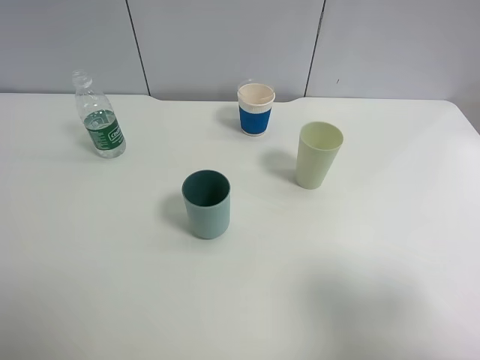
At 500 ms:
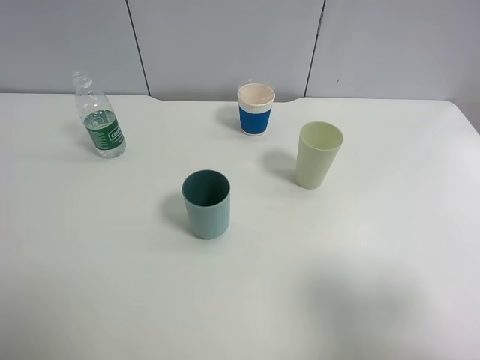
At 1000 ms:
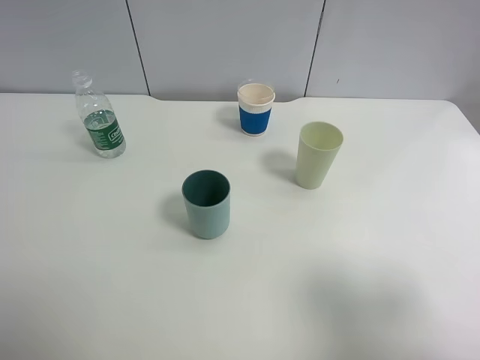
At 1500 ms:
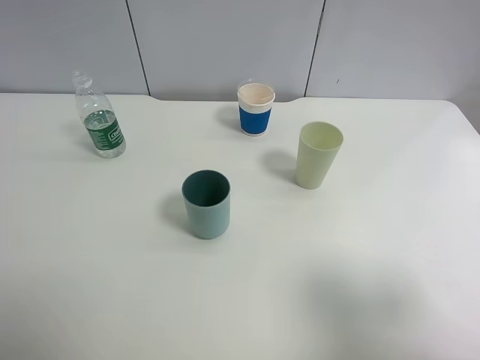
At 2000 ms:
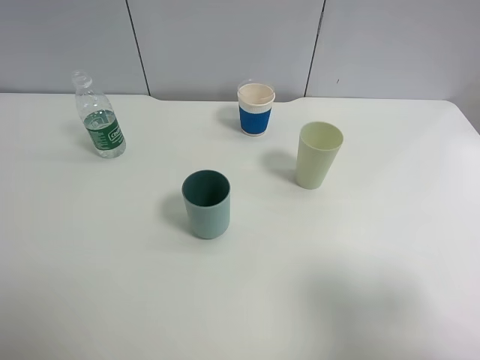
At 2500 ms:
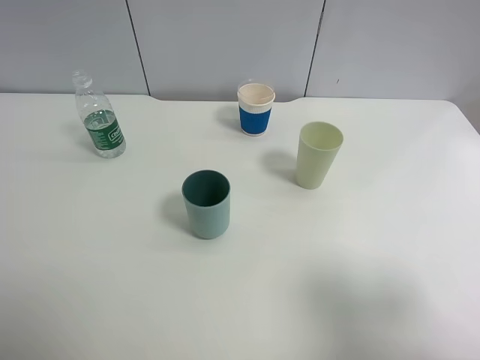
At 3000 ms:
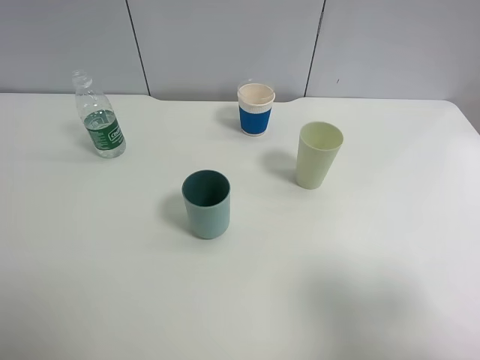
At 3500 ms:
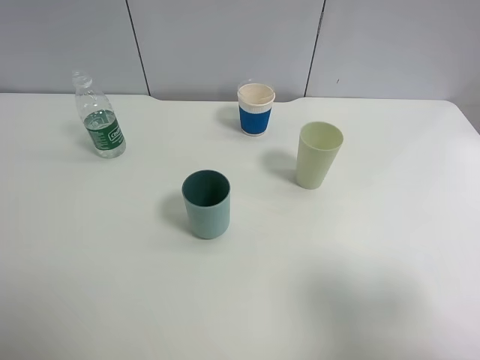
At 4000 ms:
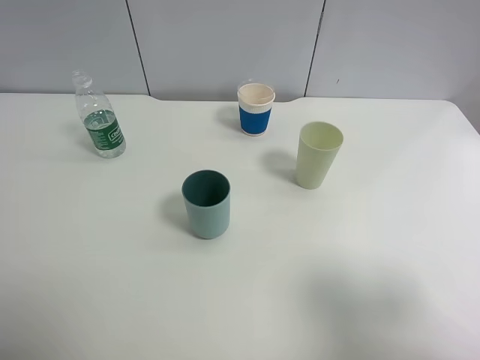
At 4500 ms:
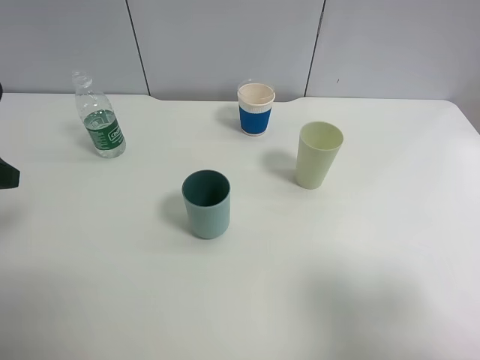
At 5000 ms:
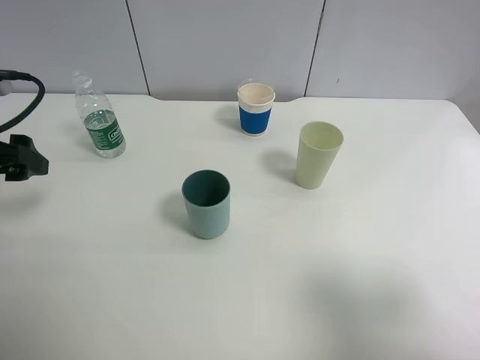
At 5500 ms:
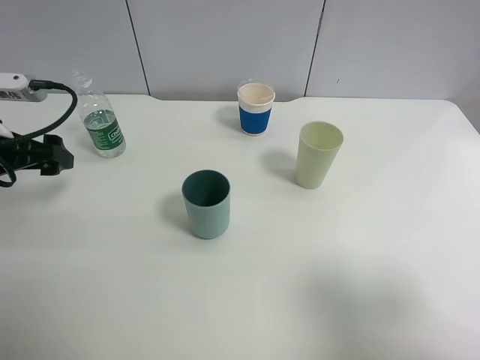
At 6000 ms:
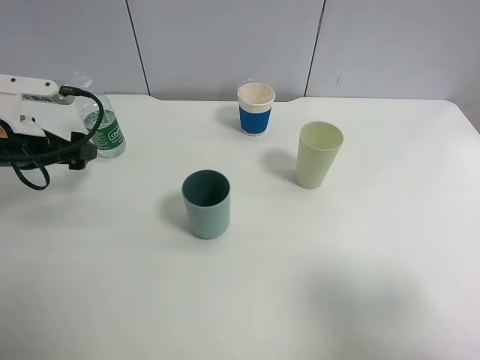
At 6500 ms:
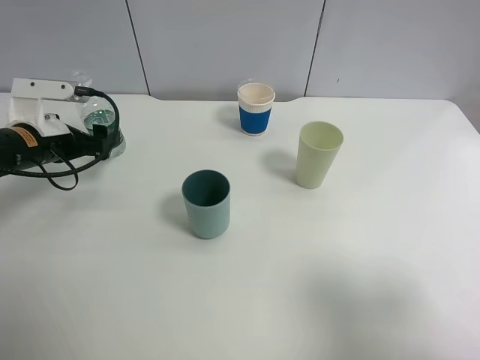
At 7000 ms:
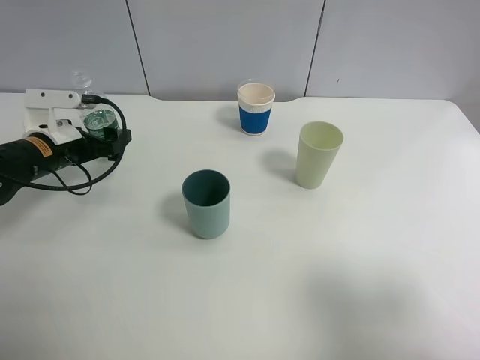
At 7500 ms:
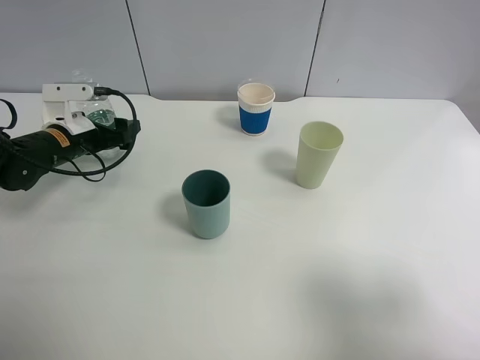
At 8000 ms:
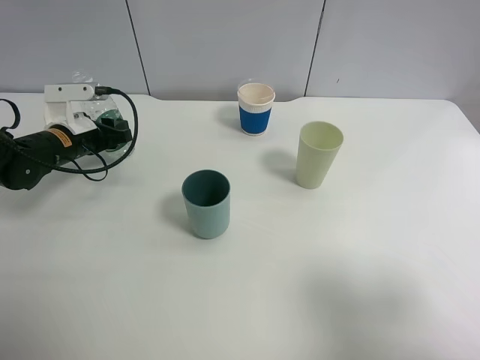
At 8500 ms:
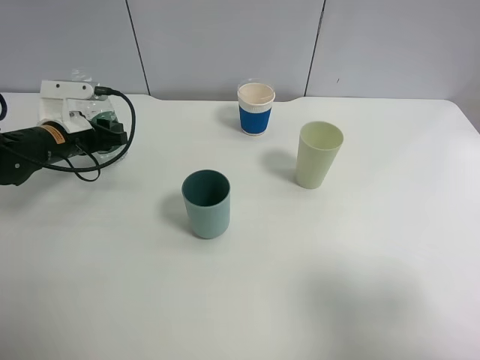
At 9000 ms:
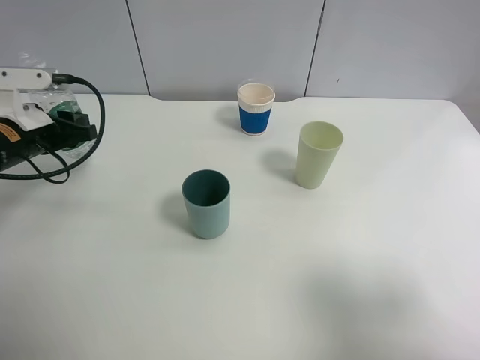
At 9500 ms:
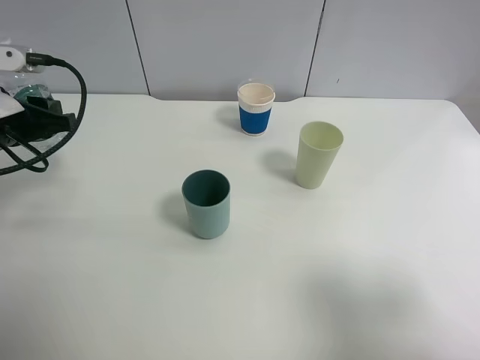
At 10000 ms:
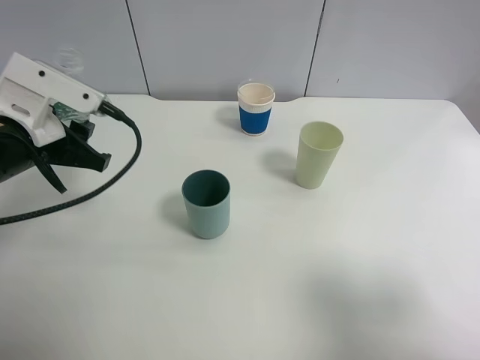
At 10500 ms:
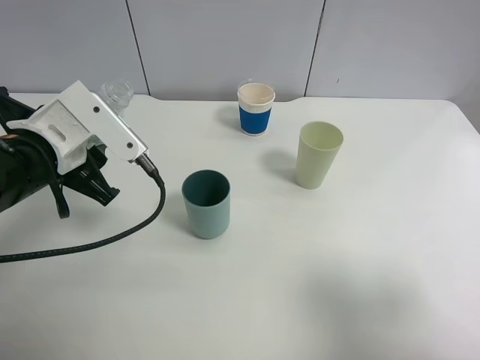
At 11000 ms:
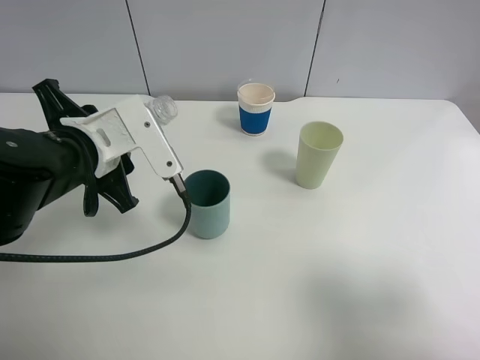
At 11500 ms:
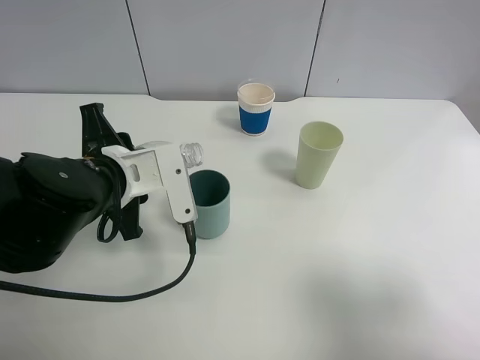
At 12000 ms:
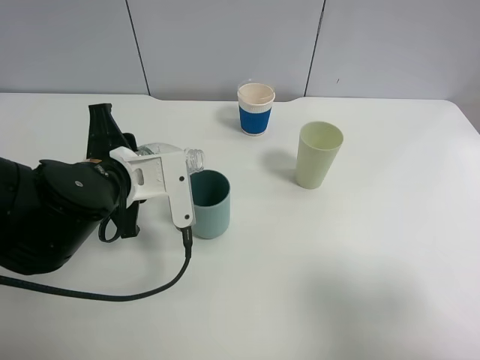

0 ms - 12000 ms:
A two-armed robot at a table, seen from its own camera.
Task of the whole recording: use a clamp to hold the bottle of the drink, pour the beverage into a random cup, then clamp the cup containing the drink and pour the drink into another random cup.
Step, 0 ms - 8500 ms: Pick up the water bottle with left gripper.
0 ms - 2000 ms: Both grippers stay about where they are.
4000 ms - 6000 ms: The left gripper travels forward and downward by some 25 cm.
6000 ms - 8000 ms: The left gripper shifts some 10 cm forward and downward, and closes.
8000 ms - 10000 ms: The left gripper goes some 15 cm backward and upward.
10000 ms - 12000 ms: The left gripper is displaced to the right by approximately 10 cm.

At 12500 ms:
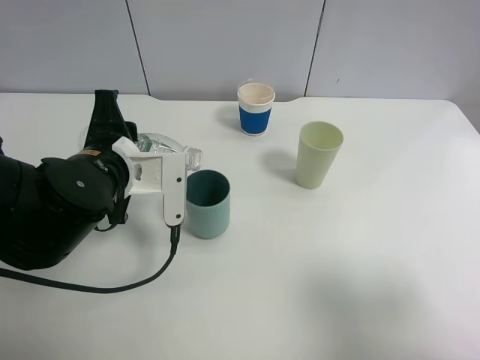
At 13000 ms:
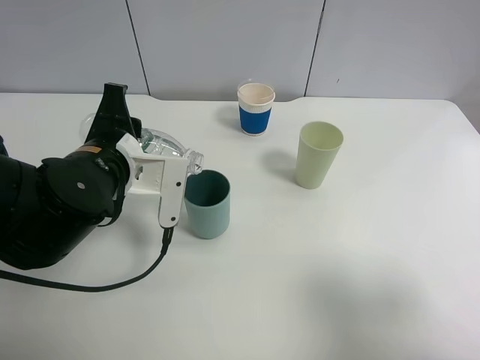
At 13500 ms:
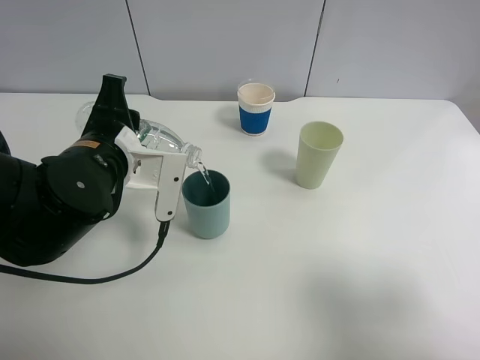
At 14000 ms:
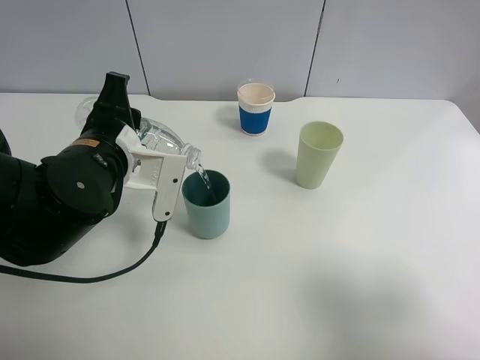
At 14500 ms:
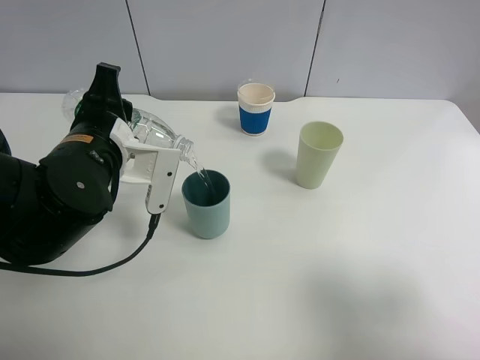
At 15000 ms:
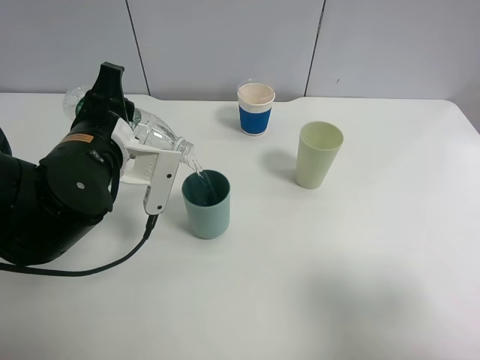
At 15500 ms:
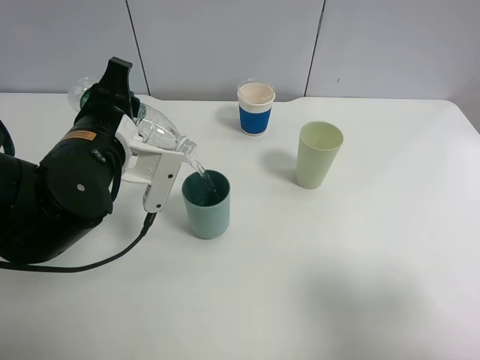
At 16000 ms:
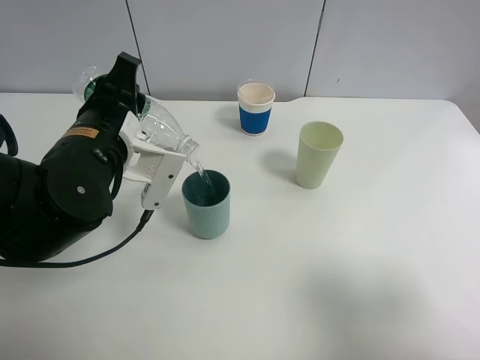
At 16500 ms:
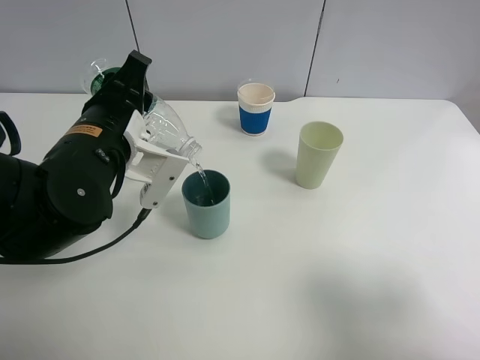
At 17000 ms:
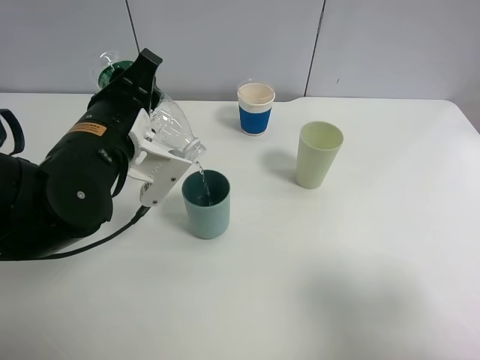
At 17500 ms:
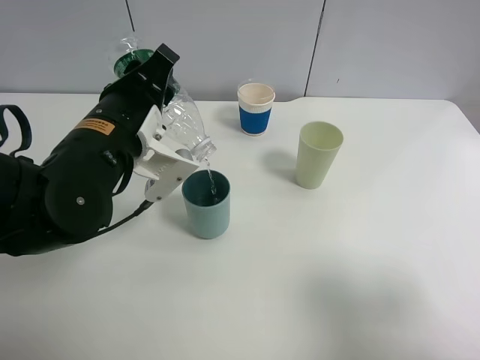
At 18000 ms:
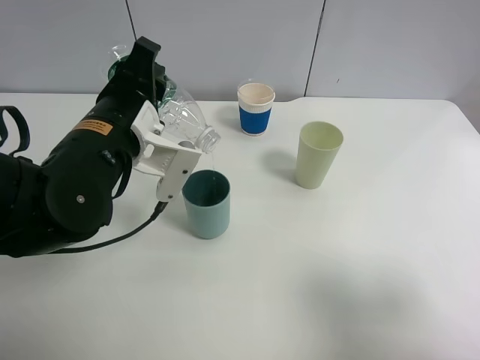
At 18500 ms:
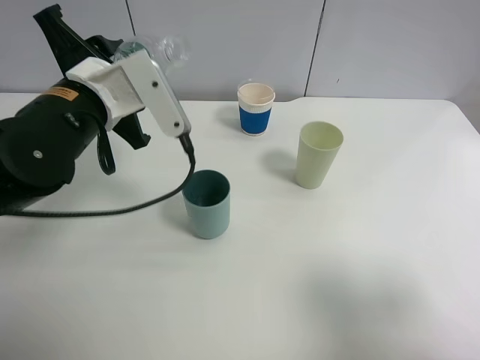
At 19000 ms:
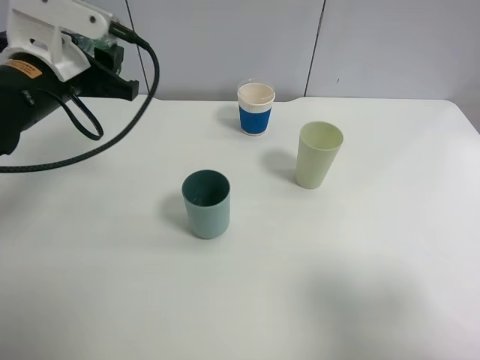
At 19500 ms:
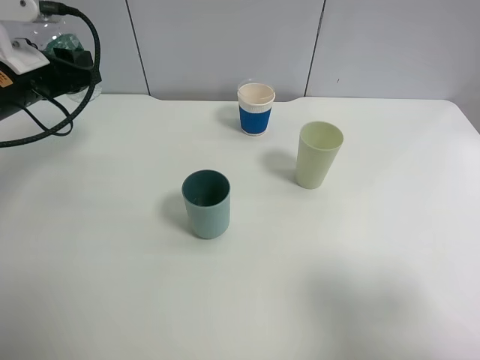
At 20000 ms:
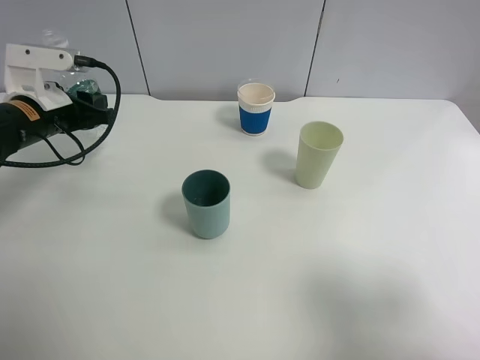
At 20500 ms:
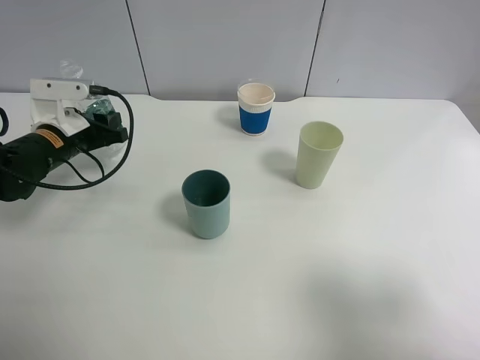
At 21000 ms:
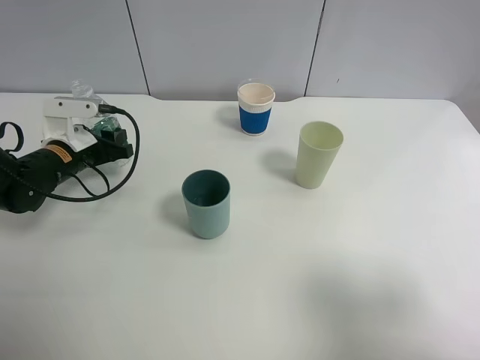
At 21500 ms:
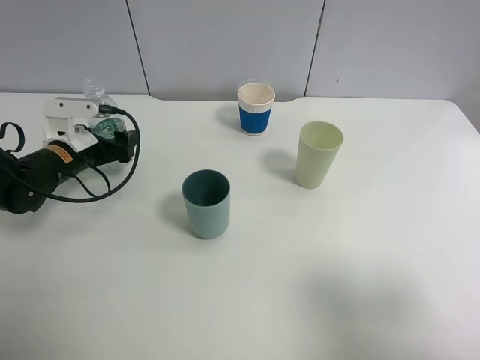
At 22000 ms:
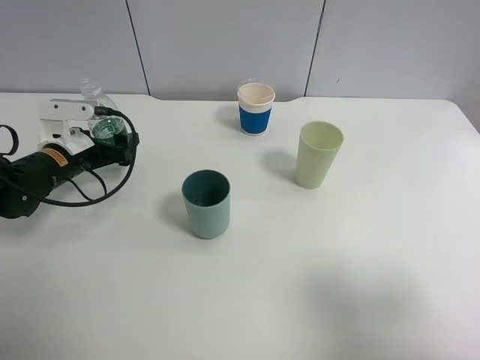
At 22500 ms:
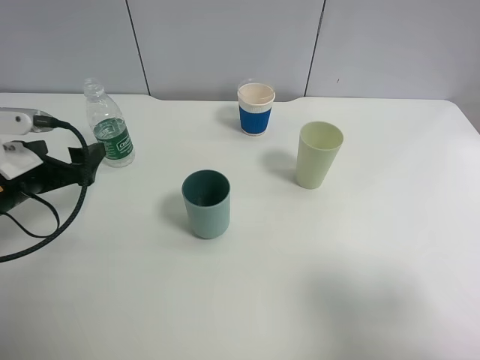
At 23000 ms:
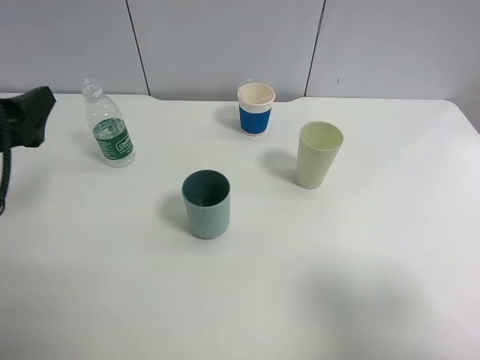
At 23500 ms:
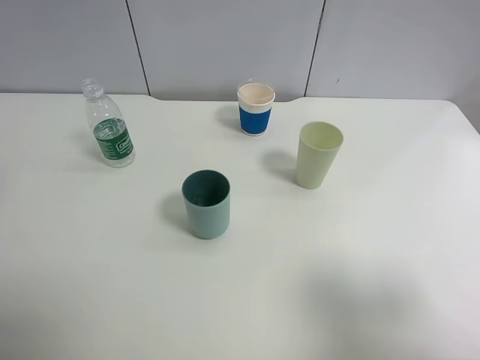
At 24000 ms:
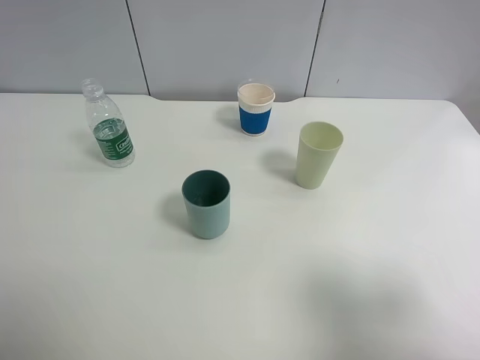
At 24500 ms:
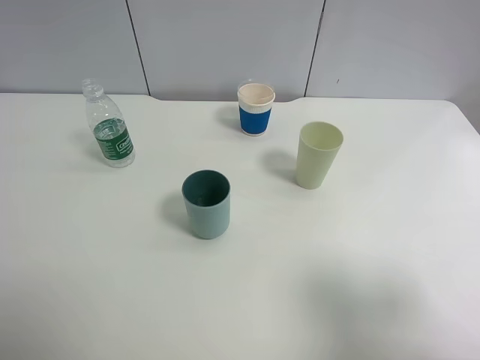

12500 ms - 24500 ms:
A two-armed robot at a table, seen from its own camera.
Task of the whole recording: use a clamp to hold the bottle of the drink, pour the beverage into a random cup, then clamp the cup containing the drink and pour the drink into another random cup.
Step, 12500 ms - 18000 ms: Pour the water into the blue plastic cup with left gripper.
Step, 18500 ms - 21500 ms: Place the water bottle on the table with left gripper.
12500 ms - 14500 ms: The grippers stay close to where they were, moving slightly.
14500 ms - 16500 ms: There are only small adjustments of the grippers.
18500 ms - 20500 ms: The left gripper is displaced downward, to the left and forward by some 20 cm.
20500 ms - 22500 ms: The left gripper is displaced backward by about 10 cm, and opens.
22500 ms - 24500 ms: The left gripper goes about 30 cm backward and upward.

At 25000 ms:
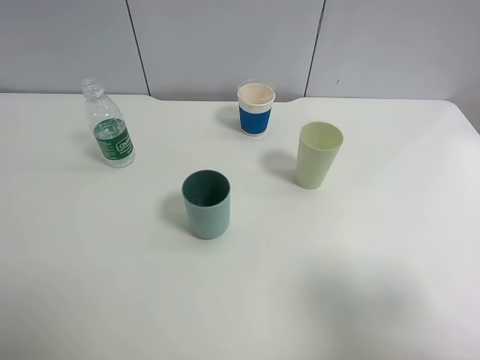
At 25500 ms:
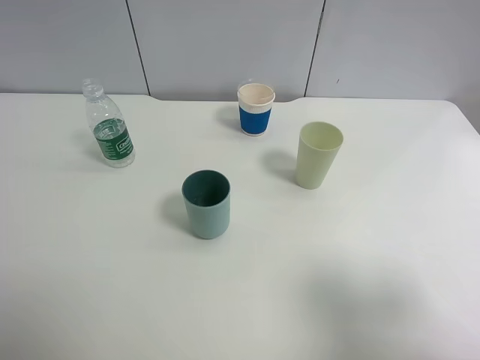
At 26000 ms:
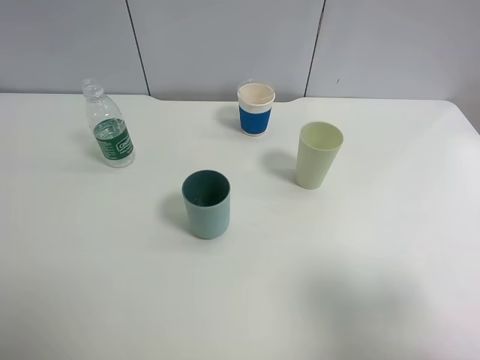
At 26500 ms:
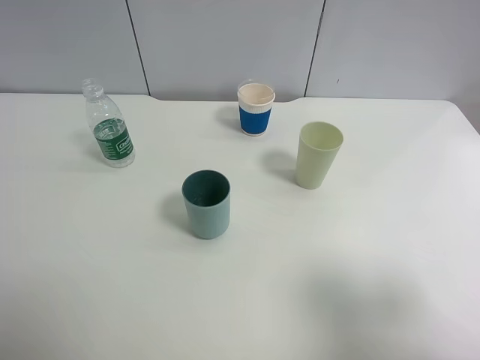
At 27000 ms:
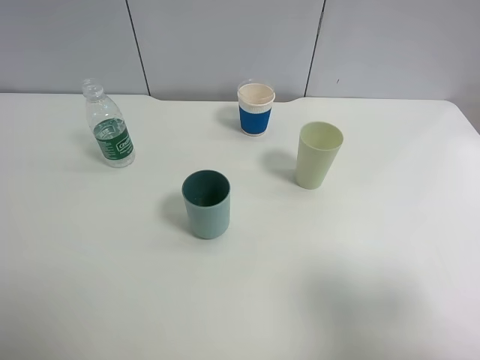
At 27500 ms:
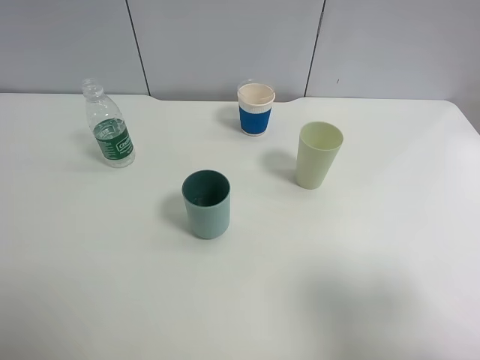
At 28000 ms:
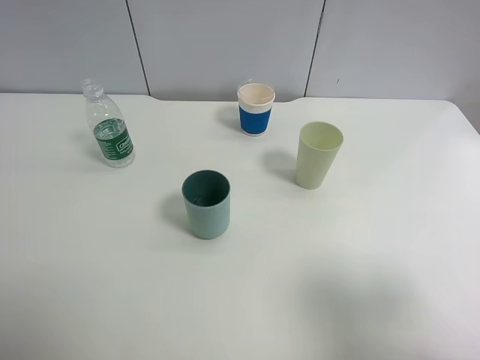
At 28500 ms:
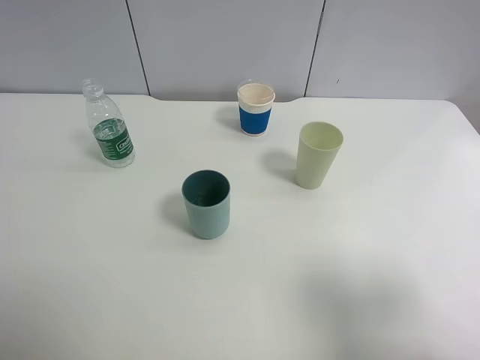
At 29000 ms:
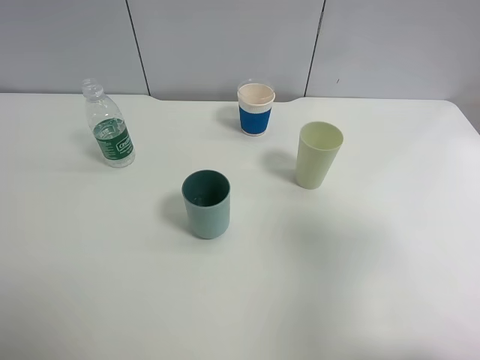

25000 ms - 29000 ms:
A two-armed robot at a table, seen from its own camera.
Task of the whole recording: use a clamp to hold the bottle of the drink, pour the beverage into a random cup, then clamp the cup containing the drink and pour the drink into another random cup.
25000 ms - 27000 ms: Both grippers stay put.
27000 ms - 29000 ms: The right gripper goes roughly 10 cm forward.
